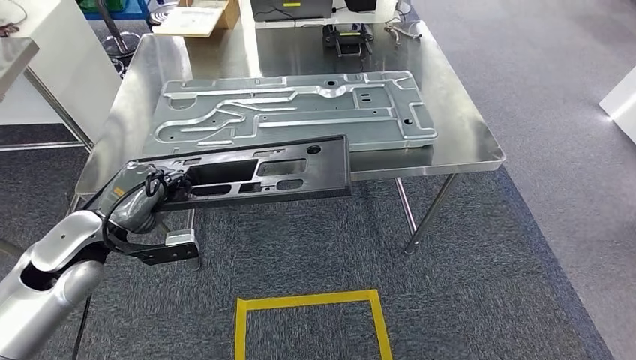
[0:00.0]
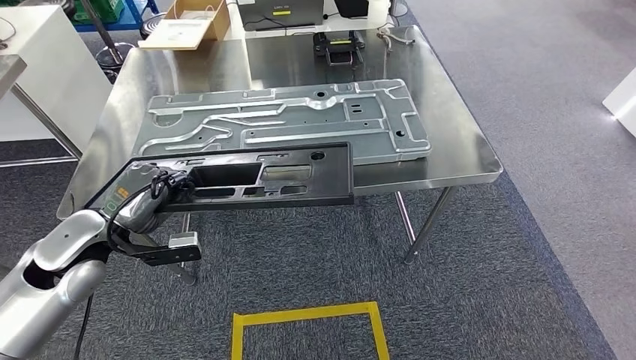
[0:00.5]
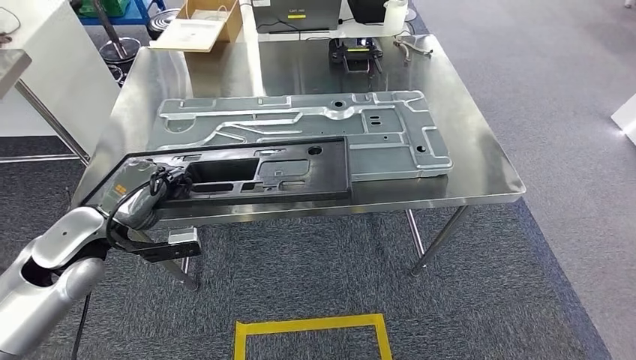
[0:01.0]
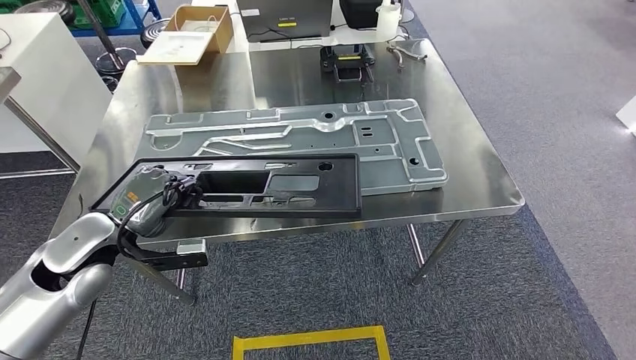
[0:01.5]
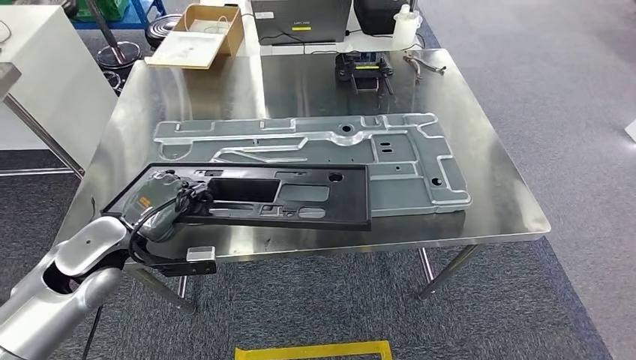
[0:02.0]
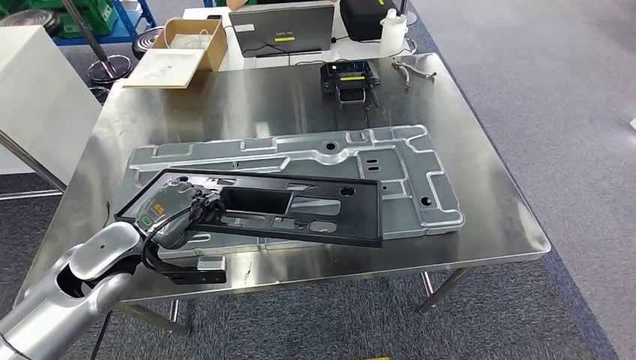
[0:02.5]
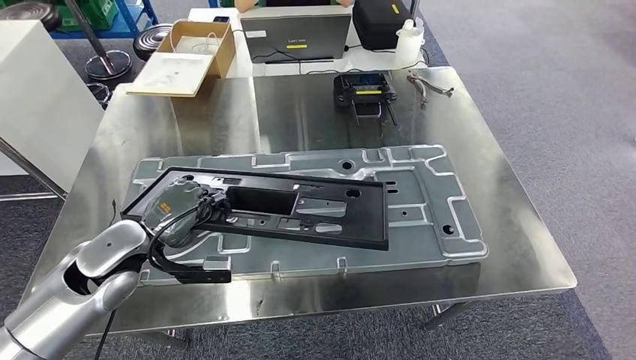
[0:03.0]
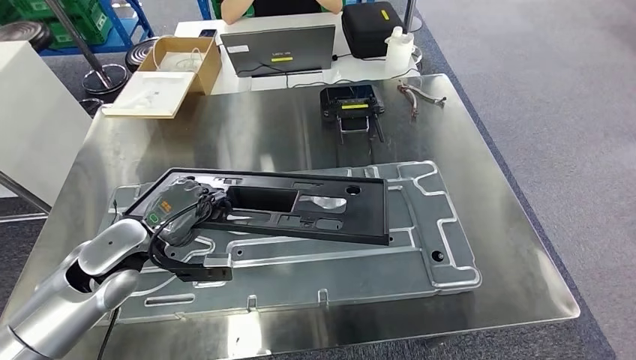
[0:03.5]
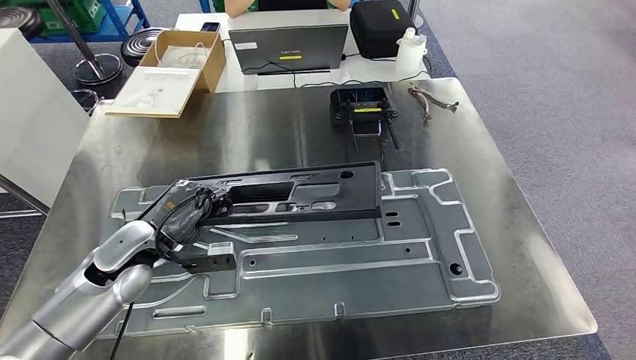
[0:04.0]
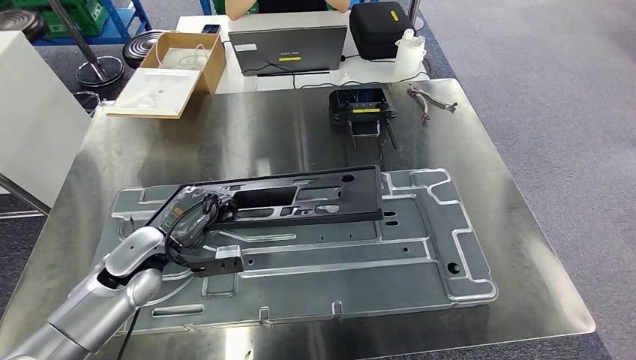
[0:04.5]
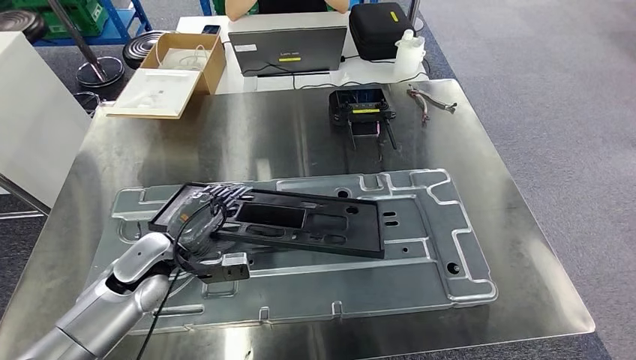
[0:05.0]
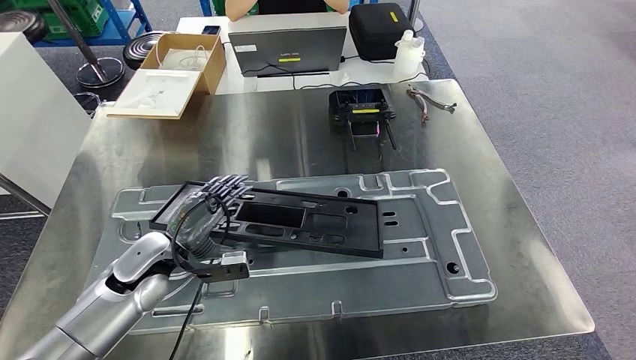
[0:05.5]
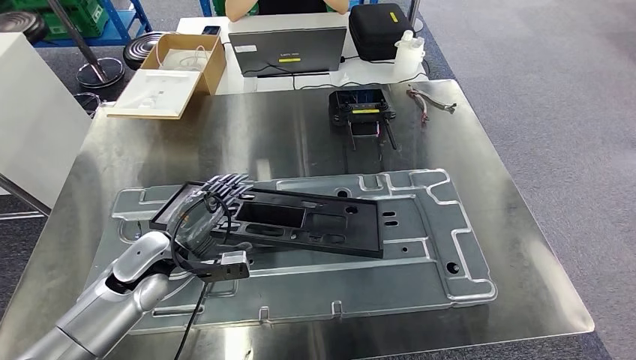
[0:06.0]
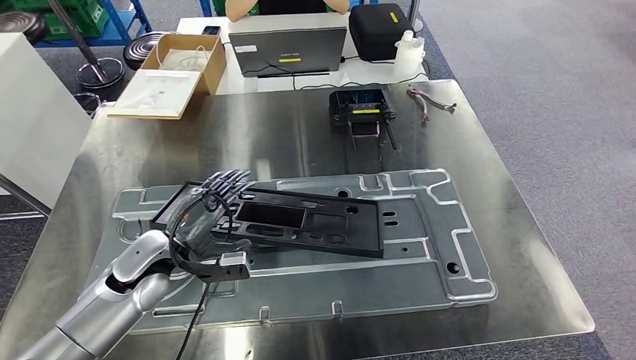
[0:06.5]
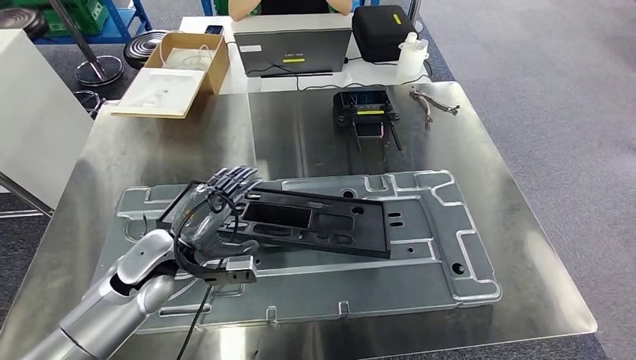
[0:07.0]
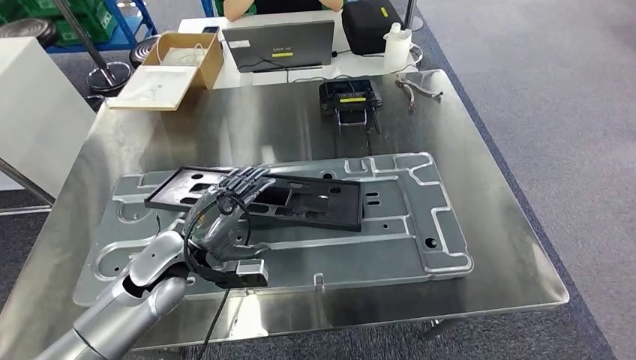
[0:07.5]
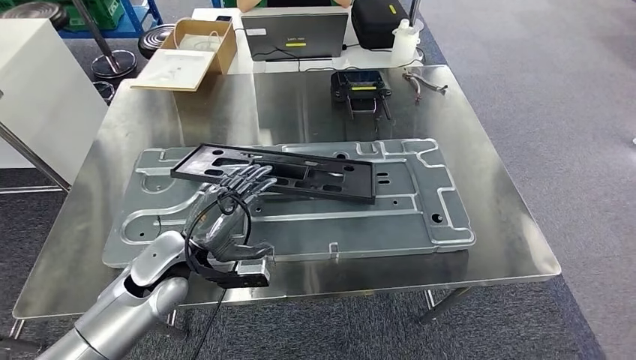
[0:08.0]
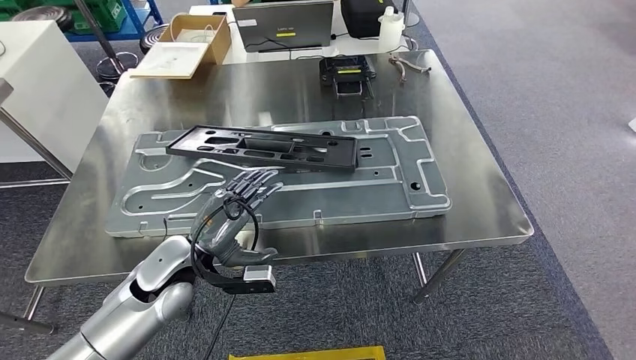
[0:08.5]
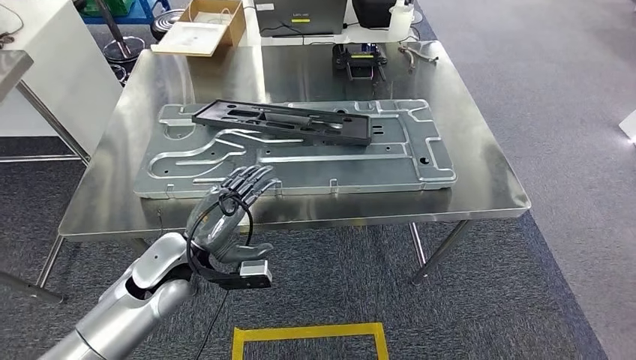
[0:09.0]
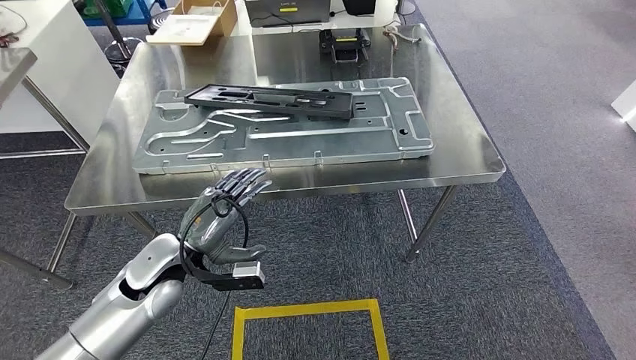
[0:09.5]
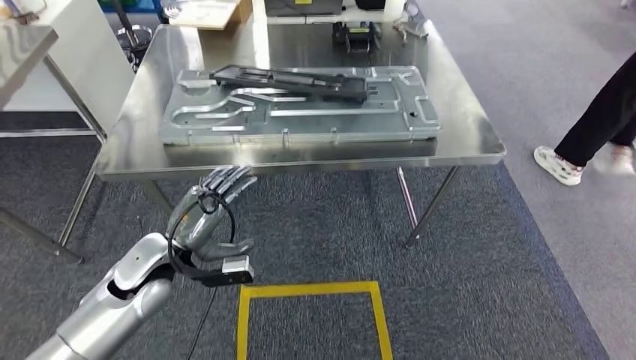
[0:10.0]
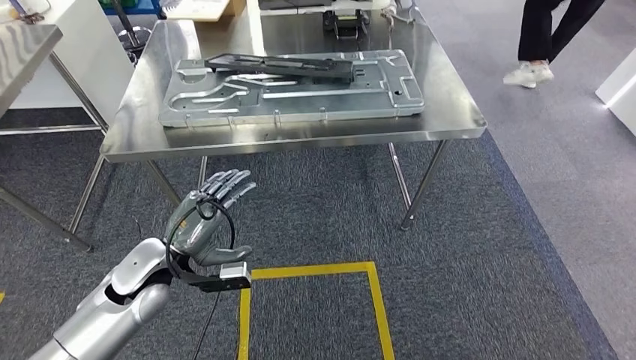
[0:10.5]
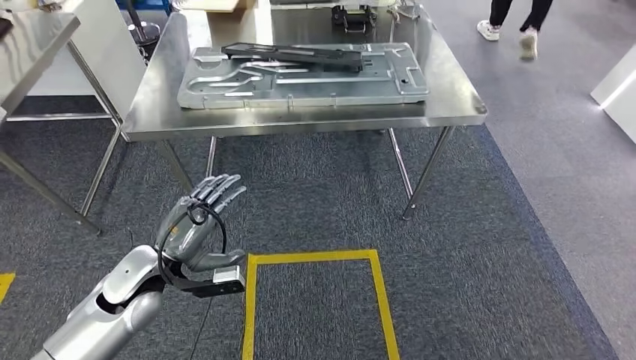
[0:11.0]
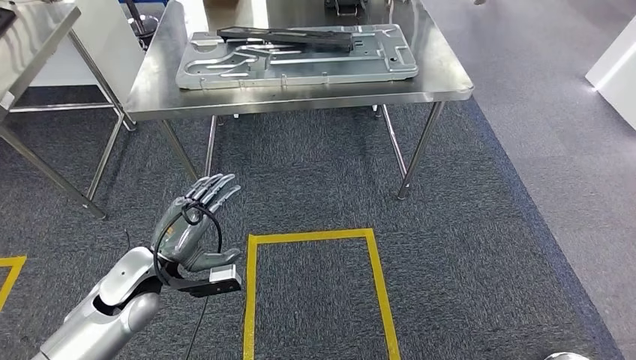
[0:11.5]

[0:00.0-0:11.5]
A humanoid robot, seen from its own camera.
Step, 0:00.0 to 0:09.0: Insert the large material into the corresponding slot on the workbench.

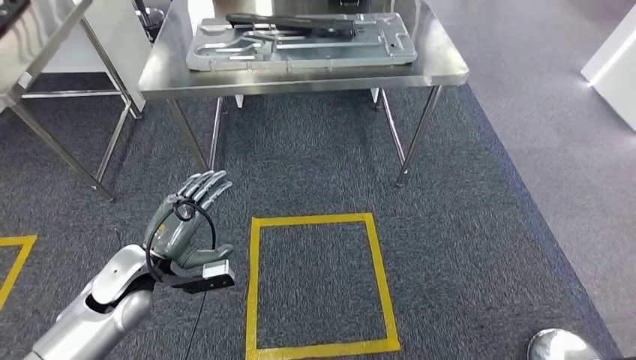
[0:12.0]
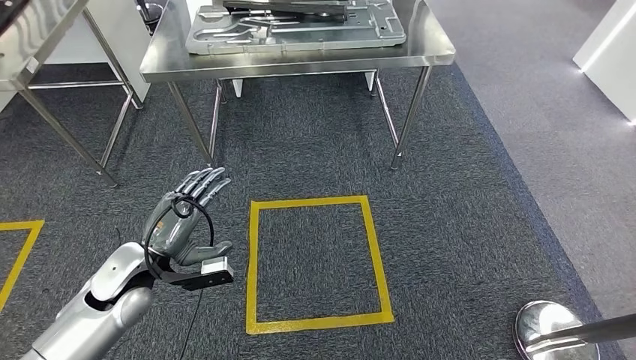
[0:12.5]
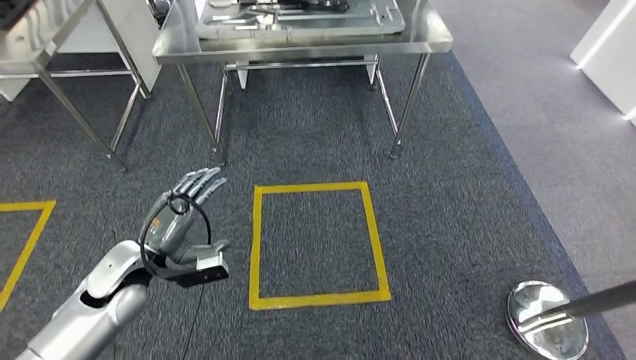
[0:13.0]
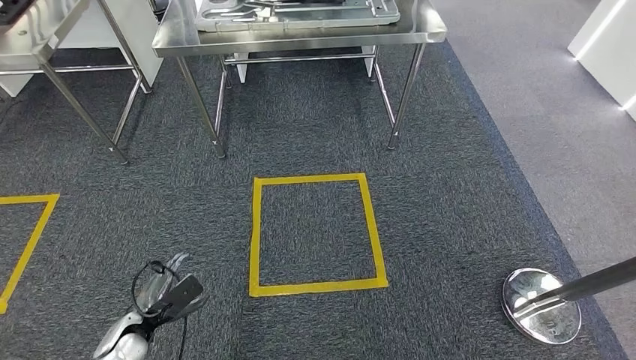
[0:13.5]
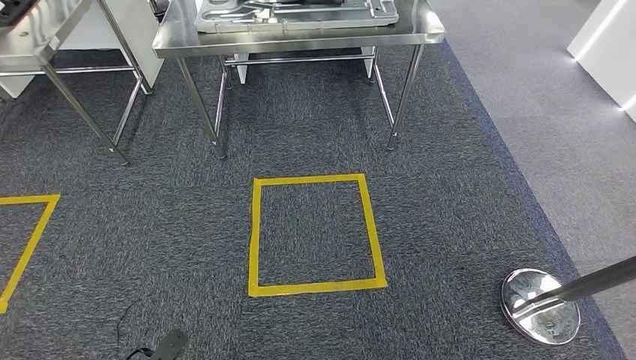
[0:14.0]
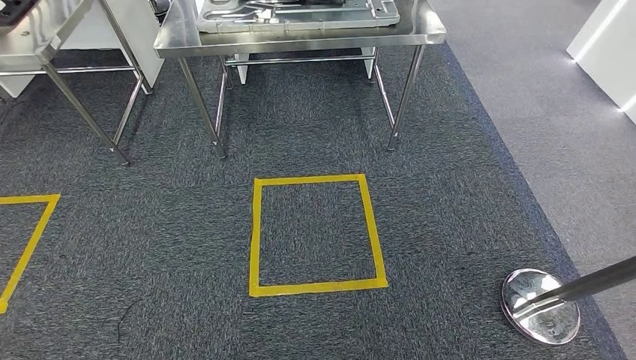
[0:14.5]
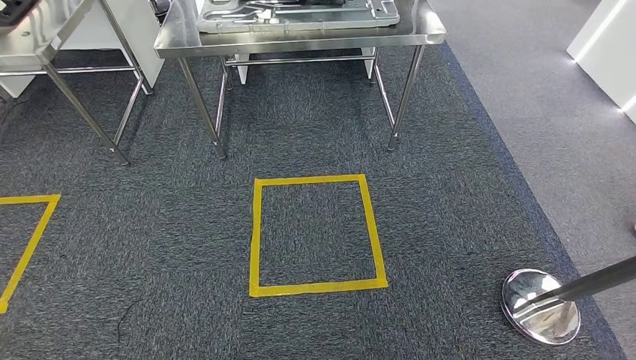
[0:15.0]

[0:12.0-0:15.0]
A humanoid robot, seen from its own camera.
Step, 0:12.0 to 0:15.0: Move to the initial position of the shelf.
0:13.5 to 0:15.0: The left hand heads backward and downward, covering some 25 cm.
